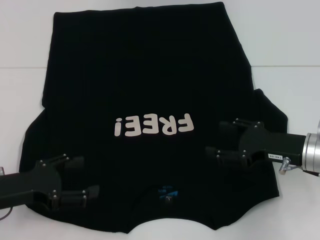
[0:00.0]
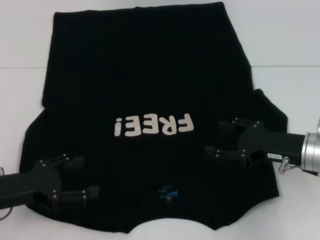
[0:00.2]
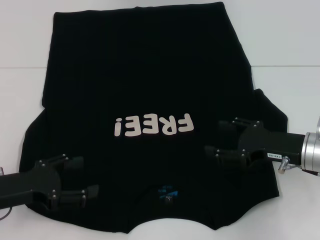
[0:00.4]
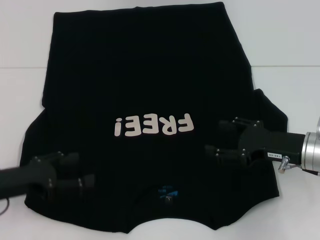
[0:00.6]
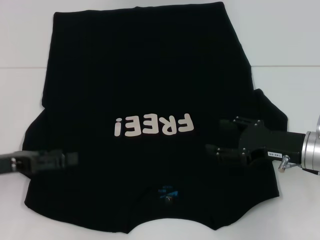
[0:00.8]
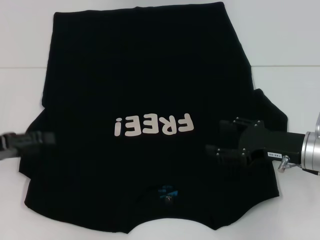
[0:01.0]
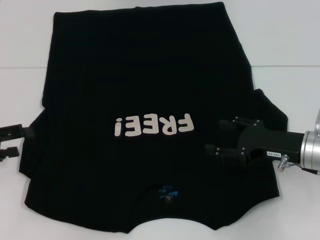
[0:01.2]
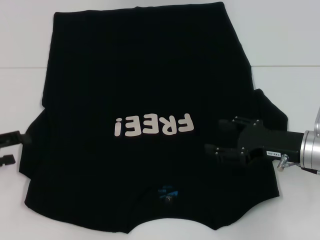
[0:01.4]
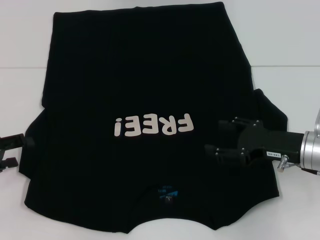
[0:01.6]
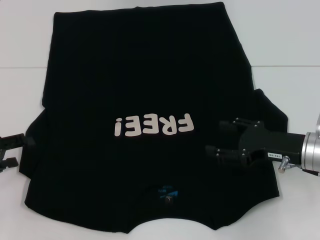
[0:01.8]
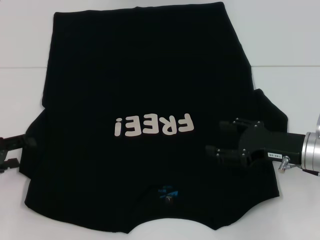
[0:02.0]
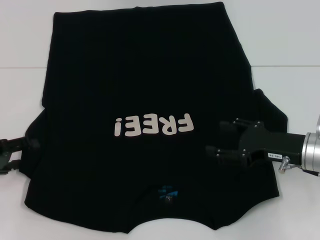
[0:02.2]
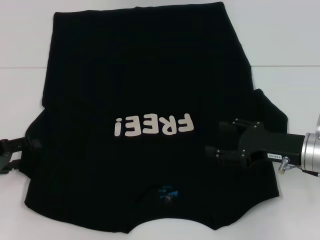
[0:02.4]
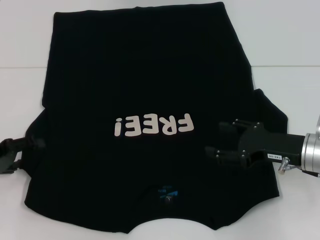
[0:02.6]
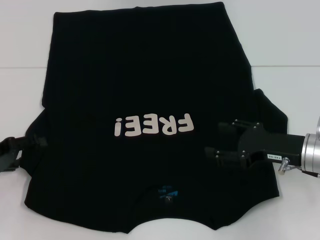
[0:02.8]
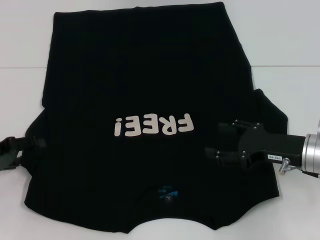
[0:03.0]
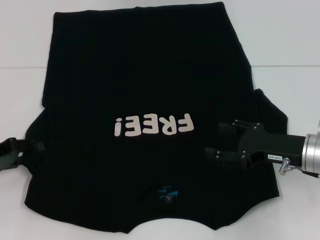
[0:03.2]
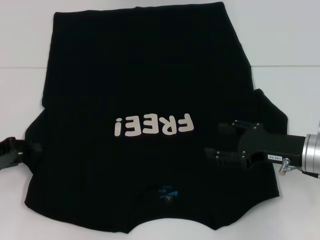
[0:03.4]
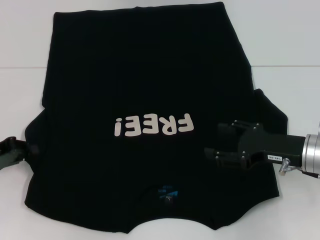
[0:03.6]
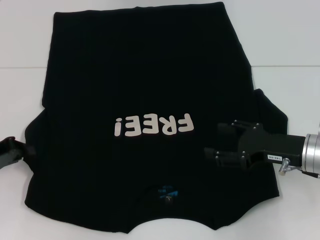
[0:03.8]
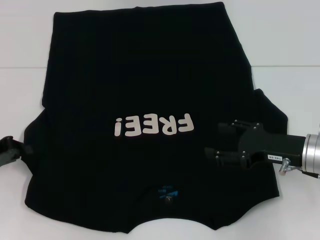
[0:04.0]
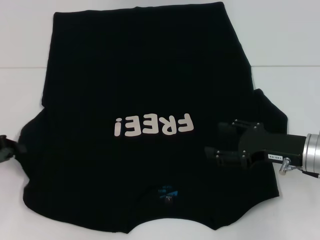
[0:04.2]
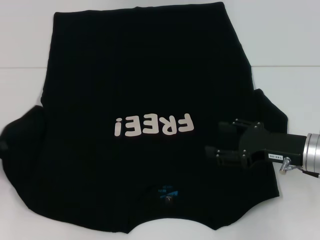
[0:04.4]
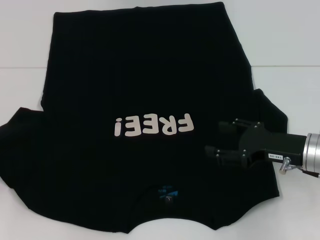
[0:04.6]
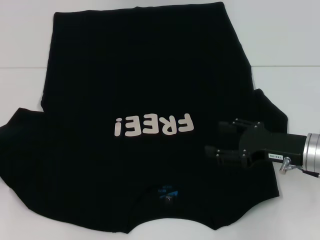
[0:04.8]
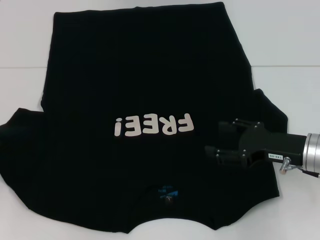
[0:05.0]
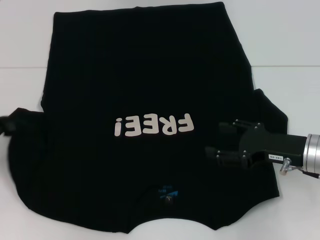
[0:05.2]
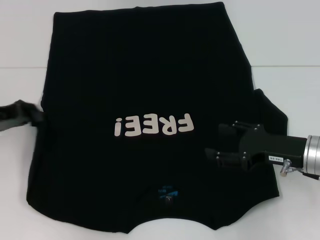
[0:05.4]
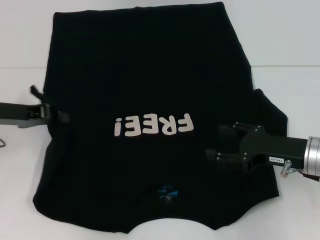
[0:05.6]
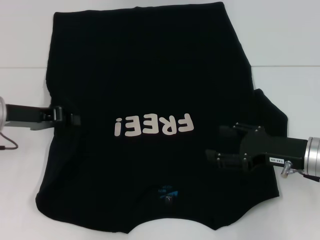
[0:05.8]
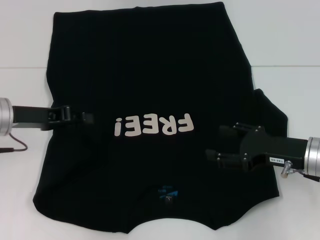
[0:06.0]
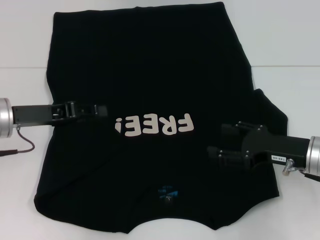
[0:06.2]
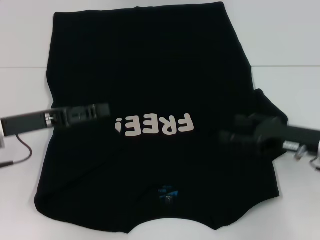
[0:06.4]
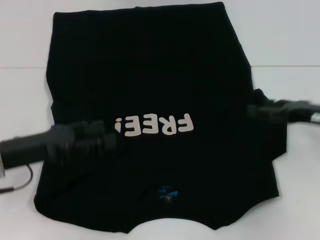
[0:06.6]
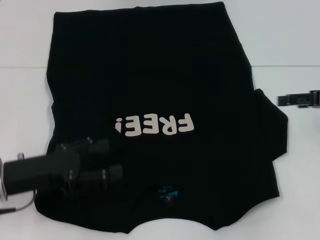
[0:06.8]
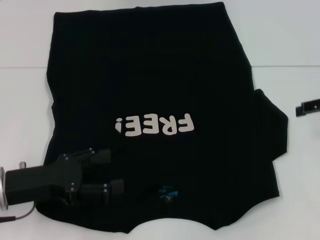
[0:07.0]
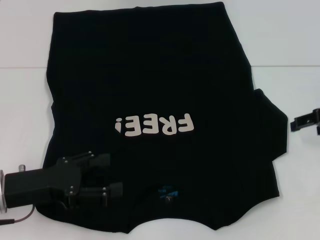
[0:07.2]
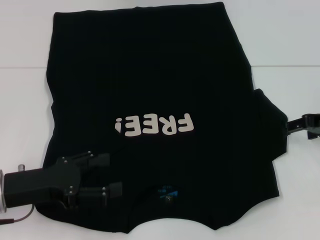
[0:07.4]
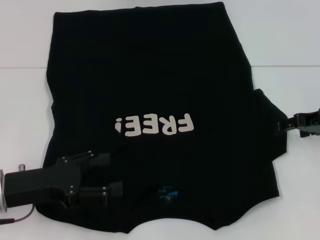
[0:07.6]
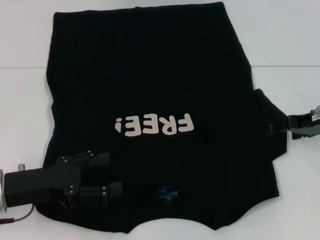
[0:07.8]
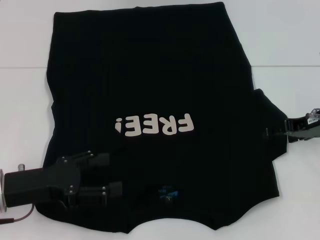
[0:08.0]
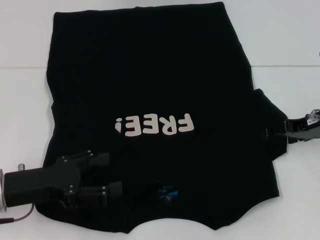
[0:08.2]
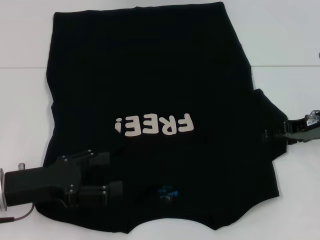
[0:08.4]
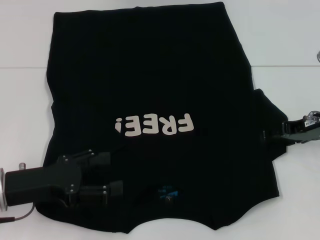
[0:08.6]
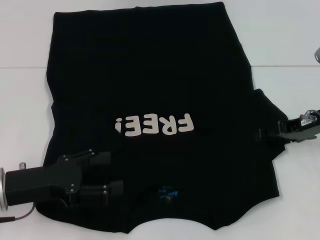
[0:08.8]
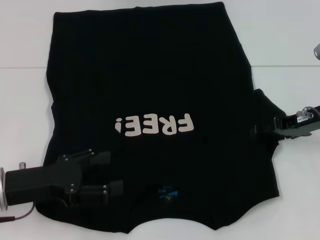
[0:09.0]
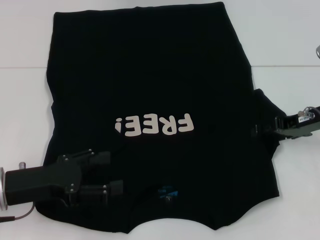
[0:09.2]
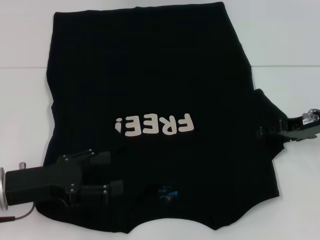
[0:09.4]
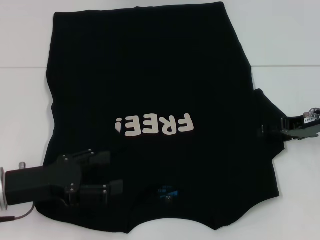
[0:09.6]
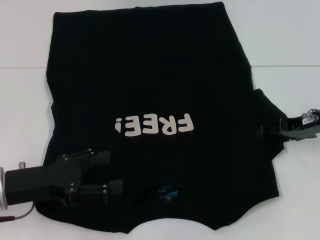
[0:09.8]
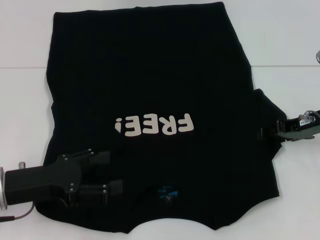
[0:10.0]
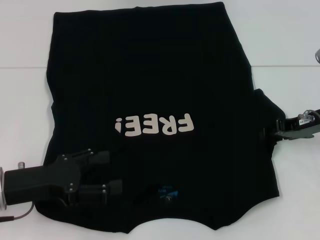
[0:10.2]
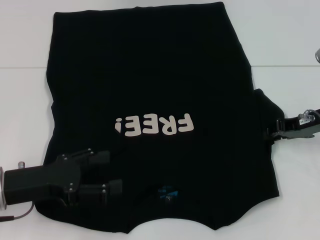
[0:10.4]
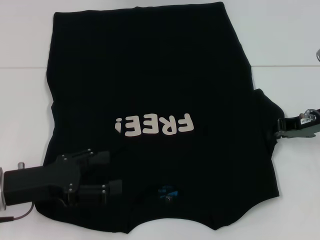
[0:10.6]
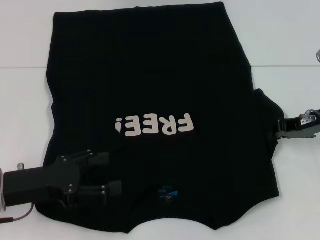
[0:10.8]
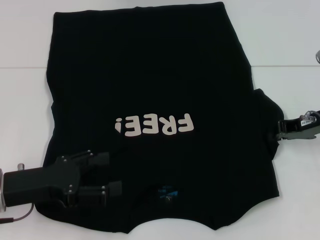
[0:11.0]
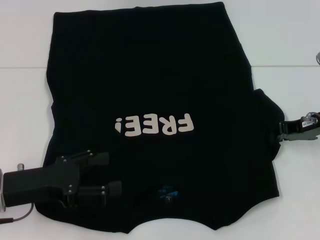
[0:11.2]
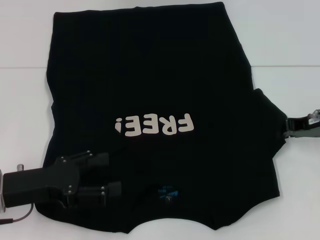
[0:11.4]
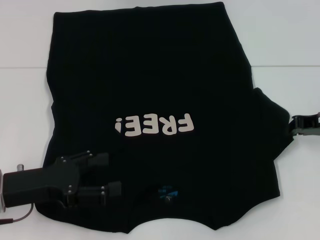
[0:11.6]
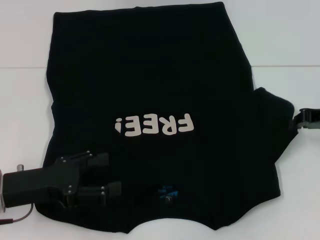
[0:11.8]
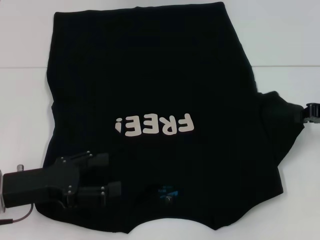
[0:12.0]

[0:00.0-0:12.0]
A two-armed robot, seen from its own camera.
Step, 0:00.0 to 0:06.4: Fold the bottom left sleeve with your left hand.
0:00.0 to 0:01.6: The left gripper heads to the left, covering some 10 cm.
0:01.6 to 0:03.0: The grippers move only a little.
0:03.0 to 0:04.4: The left gripper closes up.
0:04.4 to 0:06.0: The left gripper moves to the right and forward, roughly 15 cm.
0:06.0 to 0:07.6: The left gripper shifts some 10 cm backward, and opens its fingers; the right gripper is displaced forward, upward and to the right by roughly 10 cm.
0:07.6 to 0:09.0: The grippers make only small movements.
0:09.0 to 0:10.4: The right gripper closes.
0:10.4 to 0:12.0: The right gripper ends up roughly 5 cm from where it was, and closes its fingers.

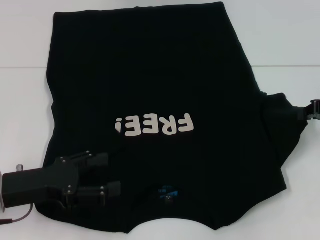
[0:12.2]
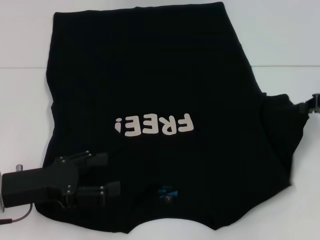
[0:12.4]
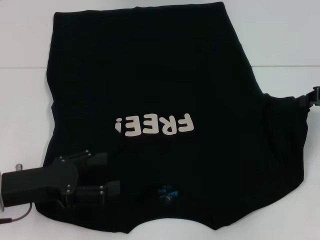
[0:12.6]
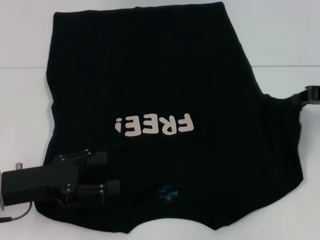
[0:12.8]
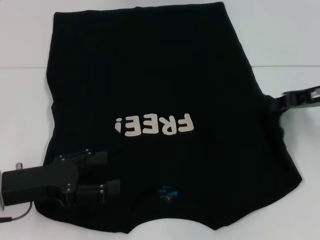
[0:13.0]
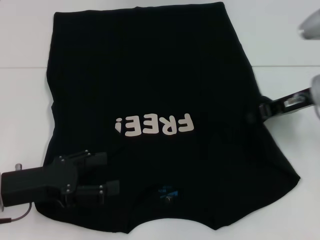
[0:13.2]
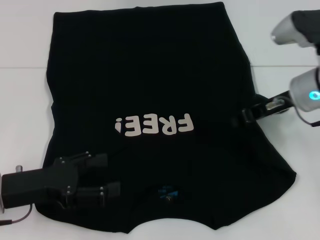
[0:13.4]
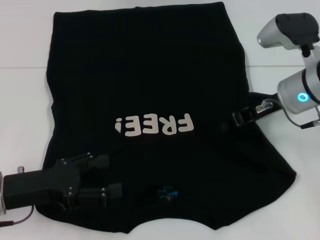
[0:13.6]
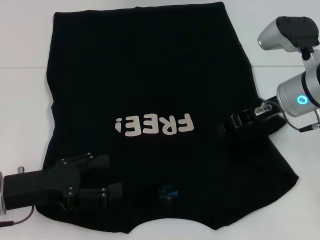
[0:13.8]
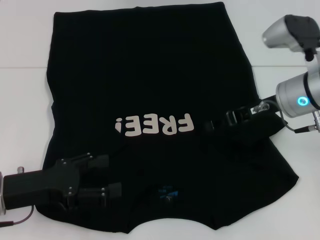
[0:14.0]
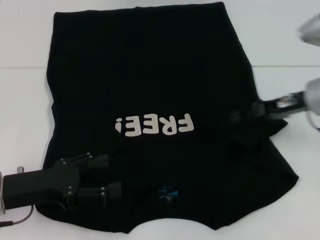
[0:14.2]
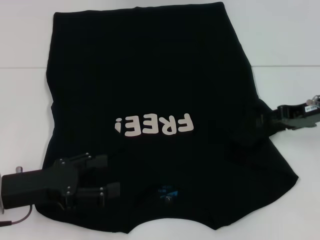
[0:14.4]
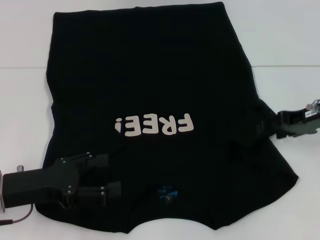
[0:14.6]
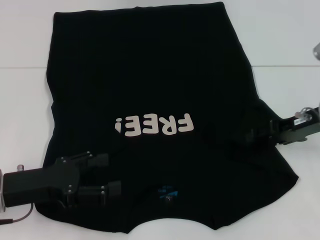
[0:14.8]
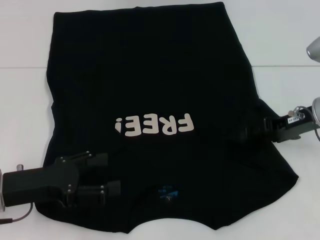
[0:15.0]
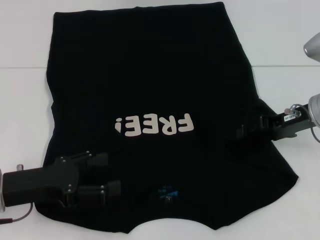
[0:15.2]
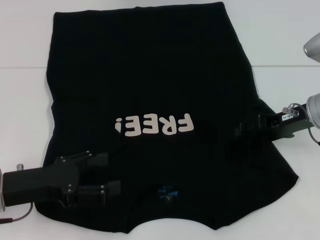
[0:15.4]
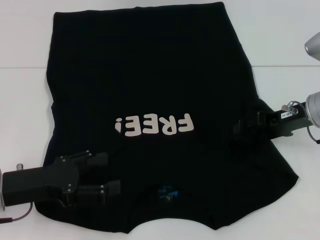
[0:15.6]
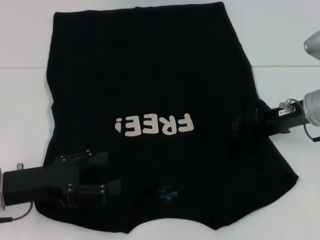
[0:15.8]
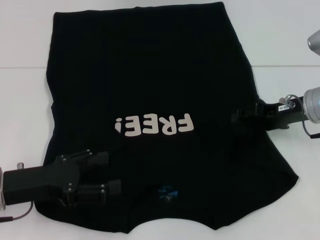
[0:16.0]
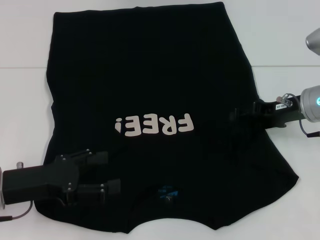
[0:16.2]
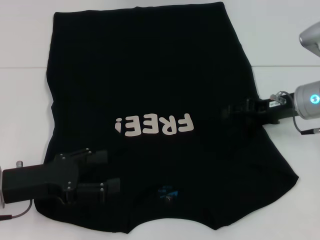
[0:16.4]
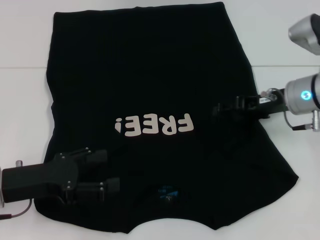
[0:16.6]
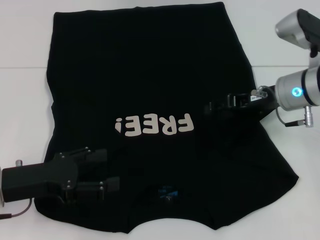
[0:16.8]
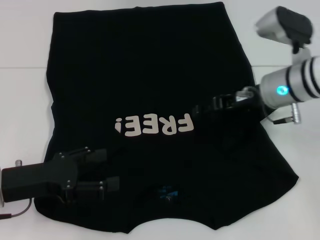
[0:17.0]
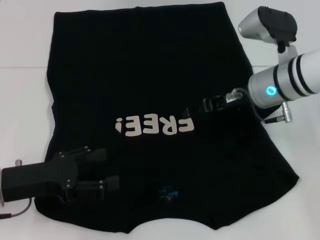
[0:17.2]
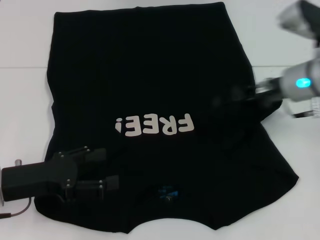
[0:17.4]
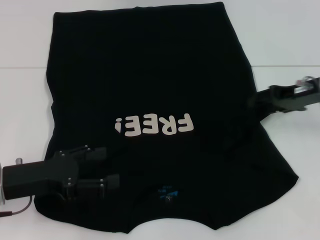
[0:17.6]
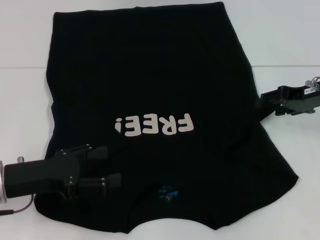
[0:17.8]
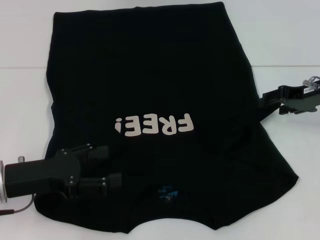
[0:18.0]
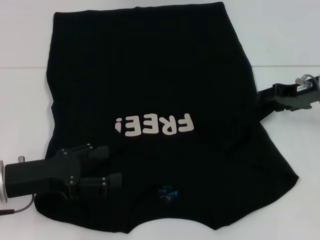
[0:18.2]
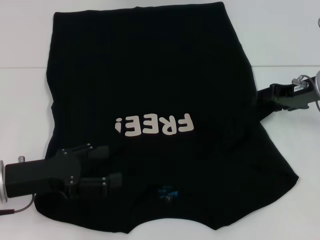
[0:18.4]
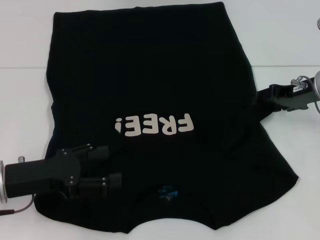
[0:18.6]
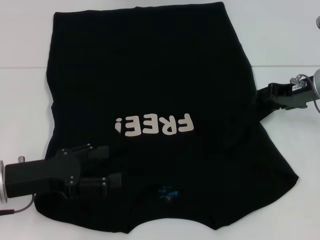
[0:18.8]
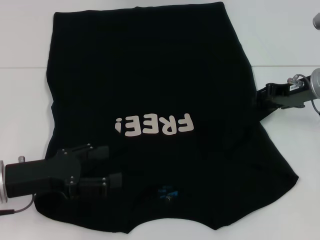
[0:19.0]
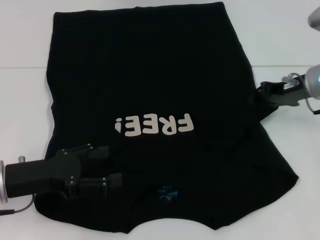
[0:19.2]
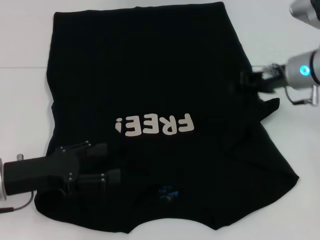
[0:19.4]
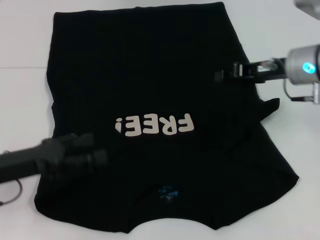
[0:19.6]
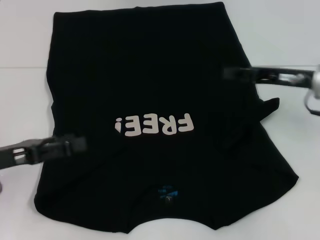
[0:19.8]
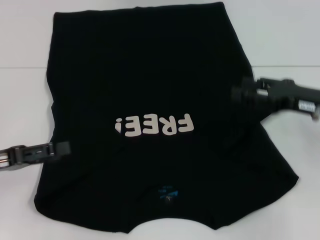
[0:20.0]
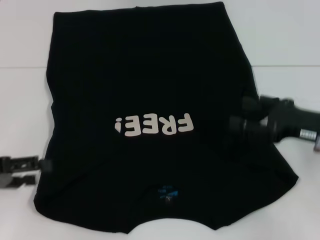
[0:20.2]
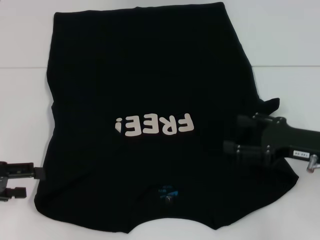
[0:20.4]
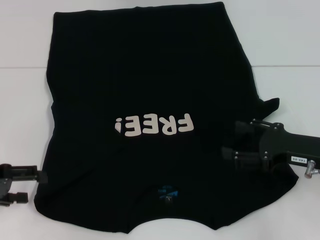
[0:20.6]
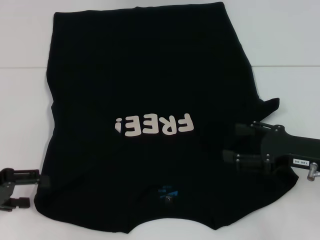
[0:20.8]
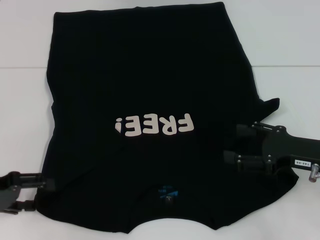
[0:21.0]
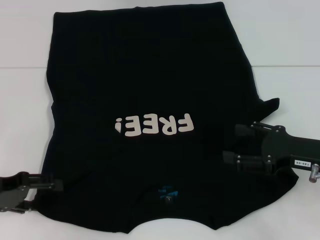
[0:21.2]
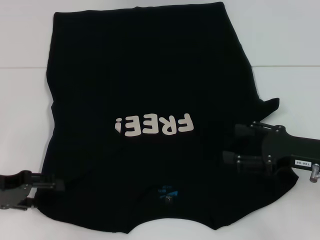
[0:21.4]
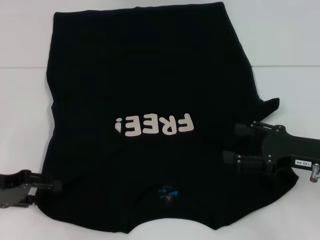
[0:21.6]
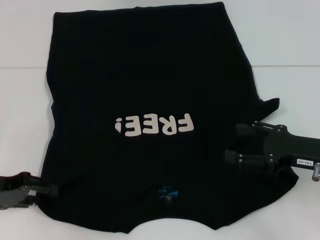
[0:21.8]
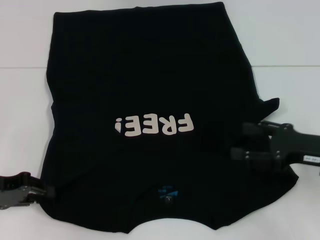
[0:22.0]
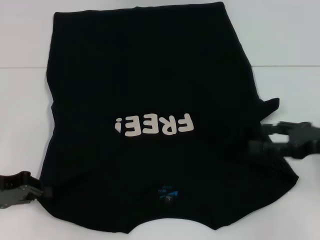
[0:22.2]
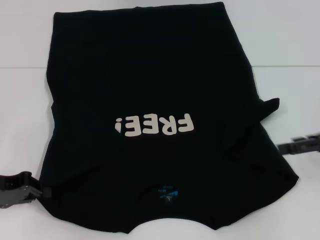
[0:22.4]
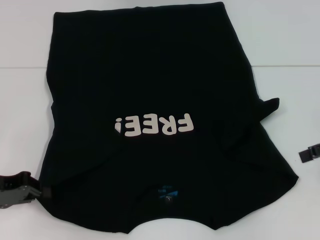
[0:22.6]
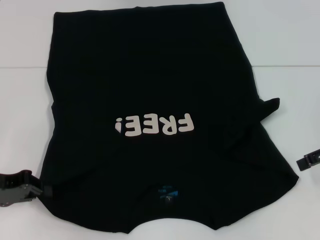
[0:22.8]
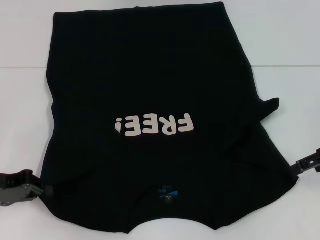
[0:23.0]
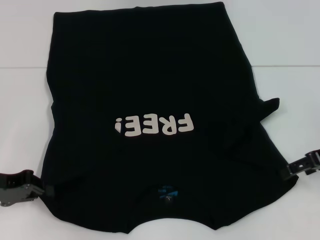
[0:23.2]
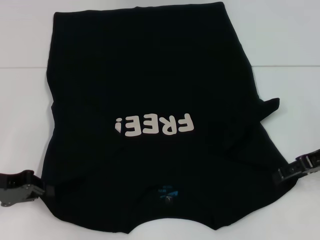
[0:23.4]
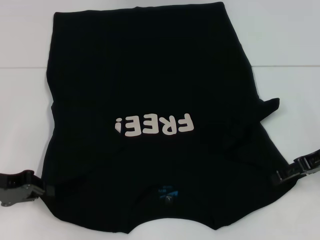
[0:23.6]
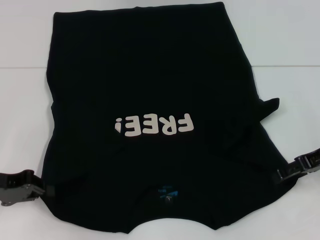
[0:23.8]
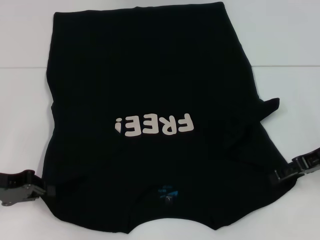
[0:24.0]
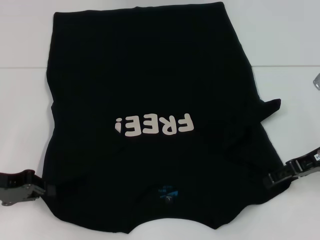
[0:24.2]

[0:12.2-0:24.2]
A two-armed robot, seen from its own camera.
Step, 0:12.2 to 0:19.4: Fold the bottom right sleeve with your right hand.
Step, 0:19.6 to 0:22.2: Grab the bottom left corner with your left hand.
0:12.2 to 0:13.8: The right gripper goes some 15 cm to the left.
0:13.8 to 0:15.2: The right gripper heads to the right, covering some 5 cm, and opens its fingers.
0:15.2 to 0:16.6: The grippers move only a little.
0:16.6 to 0:18.2: The right gripper moves approximately 5 cm.
0:18.2 to 0:19.8: The right gripper closes its fingers.
0:19.8 to 0:21.2: The right gripper shifts roughly 10 cm backward and downward, and opens up.
0:21.2 to 0:22.6: The left gripper closes its fingers. Meanwhile the right gripper moves upward and to the right, roughly 10 cm.
0:22.6 to 0:24.2: The right gripper is displaced to the left by approximately 5 cm.
